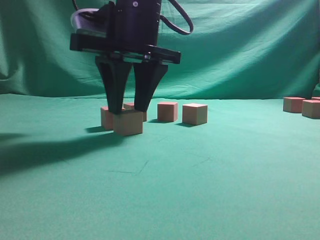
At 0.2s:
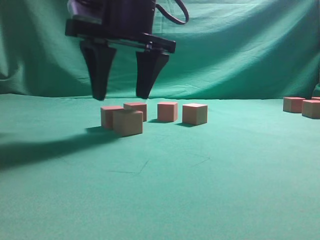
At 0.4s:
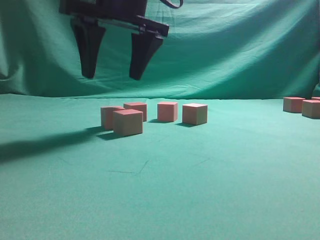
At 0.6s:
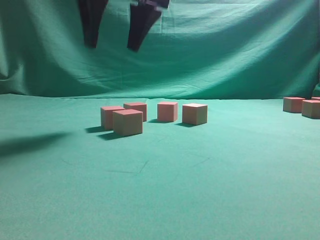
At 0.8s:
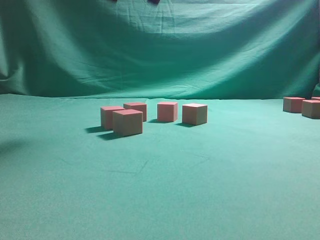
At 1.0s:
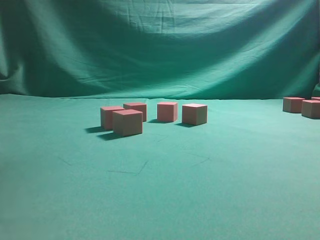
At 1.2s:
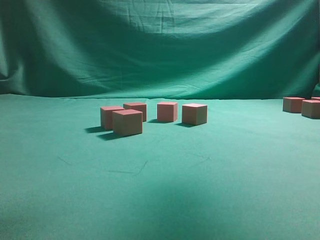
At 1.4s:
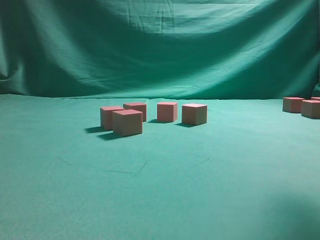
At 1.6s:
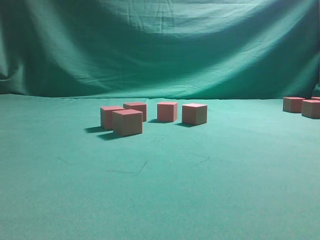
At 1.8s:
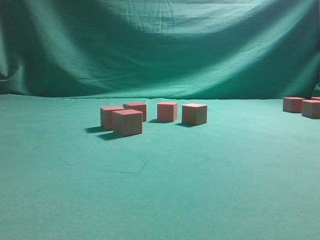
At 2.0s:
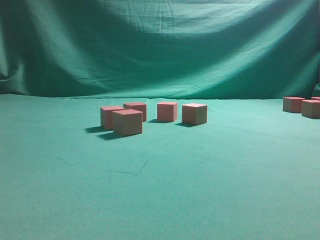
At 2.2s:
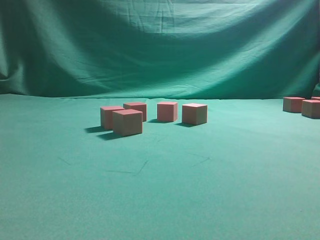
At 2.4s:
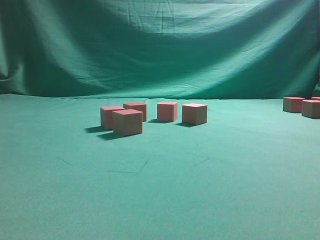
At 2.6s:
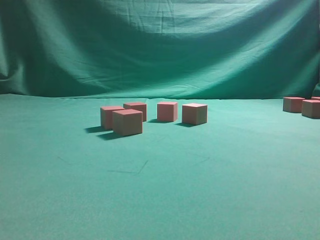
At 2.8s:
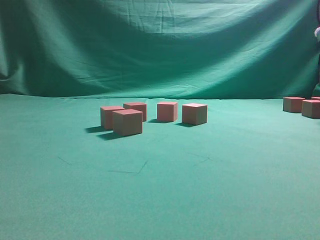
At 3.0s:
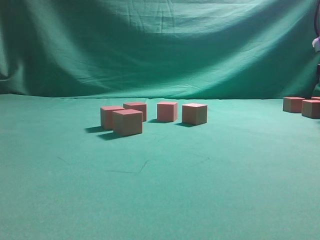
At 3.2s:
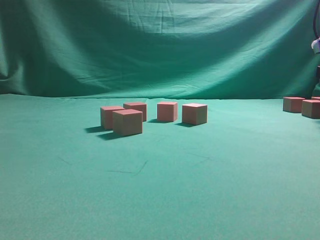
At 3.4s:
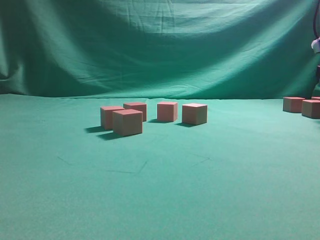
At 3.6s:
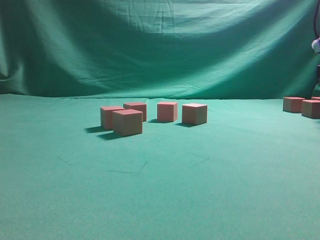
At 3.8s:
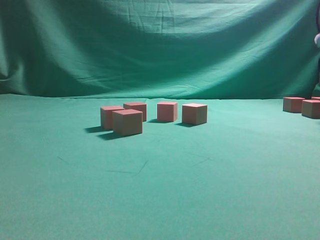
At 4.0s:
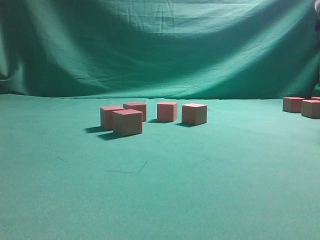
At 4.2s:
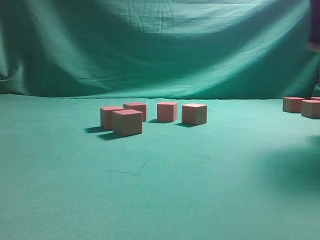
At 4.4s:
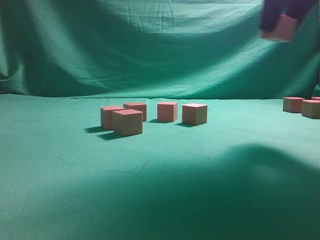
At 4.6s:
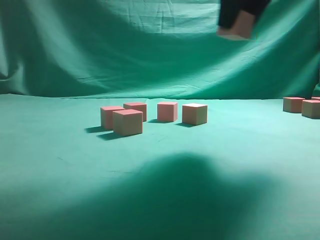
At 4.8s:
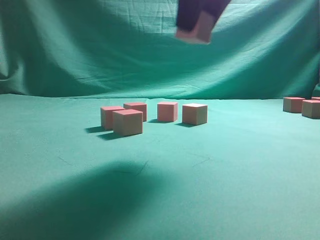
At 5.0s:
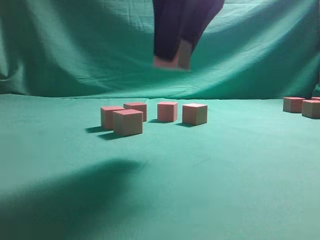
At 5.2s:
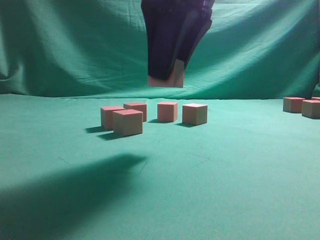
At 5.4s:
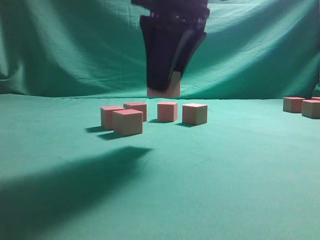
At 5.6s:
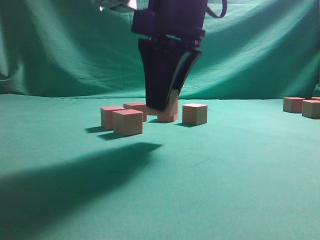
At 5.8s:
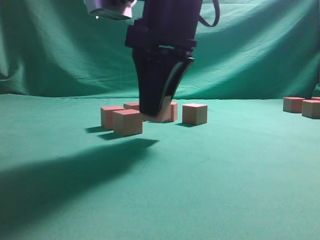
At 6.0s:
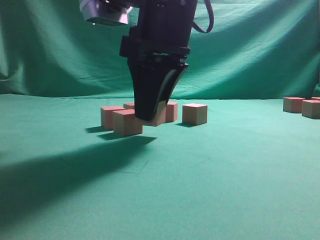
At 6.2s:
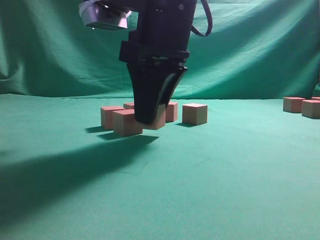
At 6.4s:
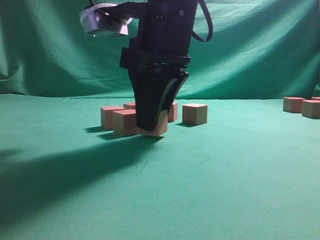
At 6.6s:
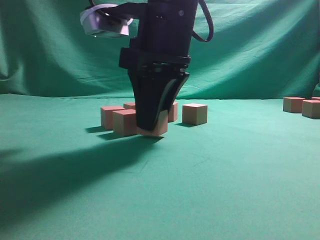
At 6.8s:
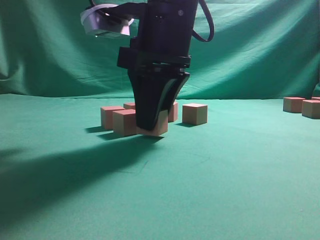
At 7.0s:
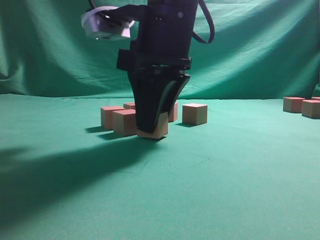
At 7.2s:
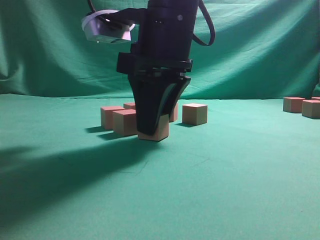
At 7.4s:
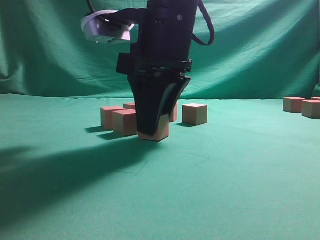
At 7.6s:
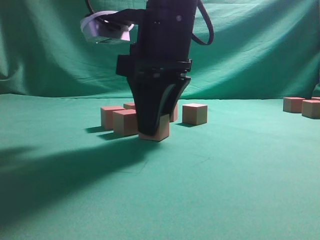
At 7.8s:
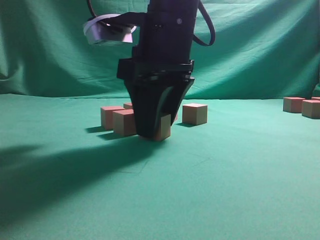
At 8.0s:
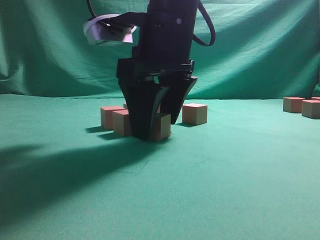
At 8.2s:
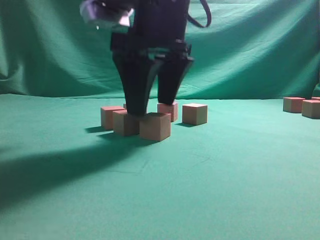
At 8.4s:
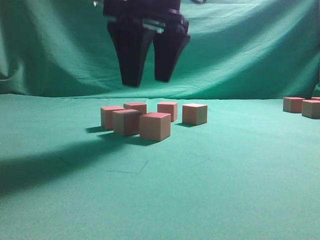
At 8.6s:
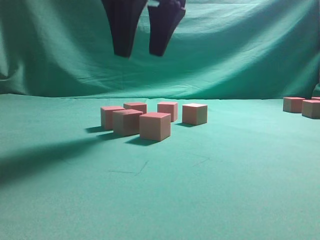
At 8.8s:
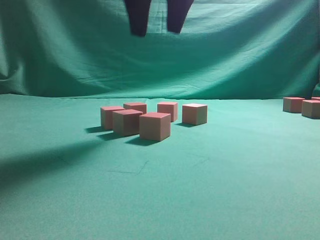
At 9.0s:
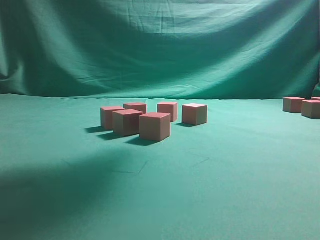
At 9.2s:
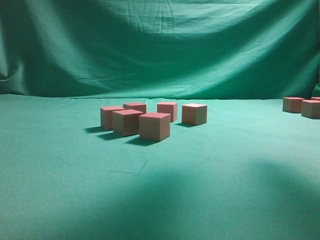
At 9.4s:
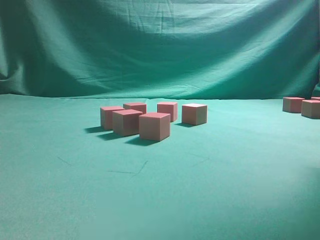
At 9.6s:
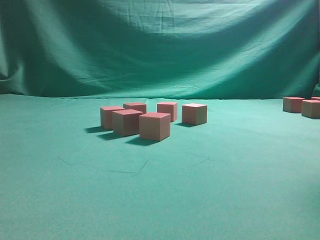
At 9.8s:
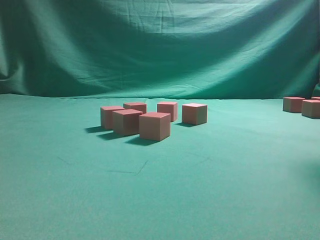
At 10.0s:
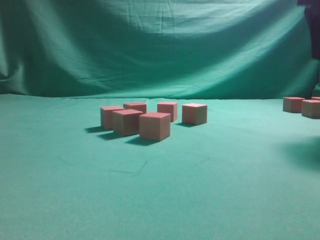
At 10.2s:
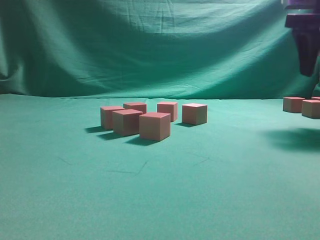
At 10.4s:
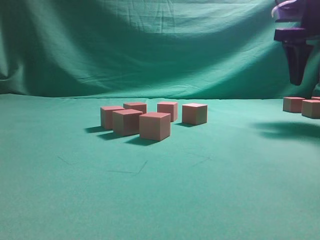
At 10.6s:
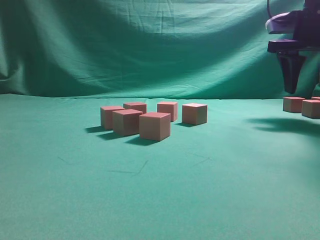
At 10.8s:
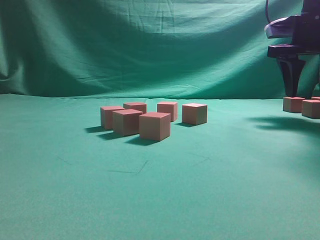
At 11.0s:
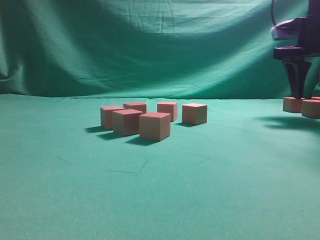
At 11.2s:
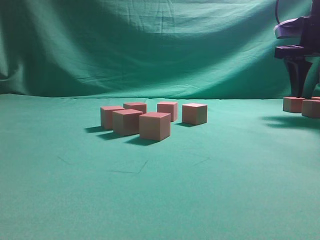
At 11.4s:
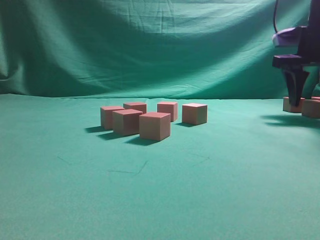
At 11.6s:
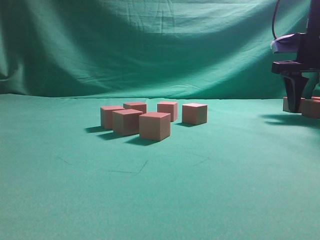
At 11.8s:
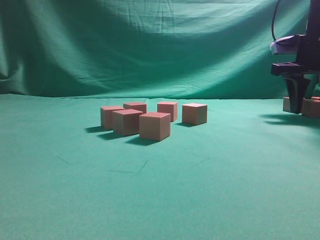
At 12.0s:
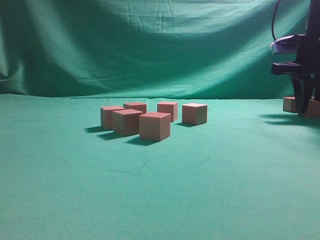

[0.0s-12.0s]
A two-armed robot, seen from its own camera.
Task of the whole recording: pick up the multiple cubes in two columns one by one and place them in another position on the table.
Step, 0.6s to 4.0s: Pick up the block on the table.
Step, 4.2s to 8.4s: Place the block at the correct position to assemble the letter S.
0.0s to 1.6s: The right gripper moves to the right and upward, about 30 cm, and opens.
3.0s to 4.4s: The right gripper is displaced to the left, upward and backward by approximately 20 cm, and closes.
4.4s to 6.0s: The right gripper moves to the left and downward, roughly 20 cm.
6.0s to 7.6s: The grippers stay close to where they were, moving slightly.
7.6s to 9.0s: The right gripper goes roughly 15 cm upward, and opens up.
9.0s to 10.4s: The right gripper goes roughly 25 cm to the right, downward and forward.
10.4s to 12.0s: The right gripper travels downward by about 5 cm, and closes its fingers.

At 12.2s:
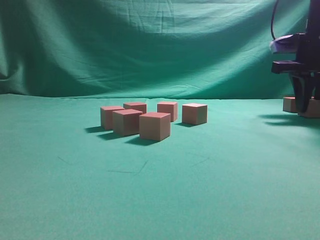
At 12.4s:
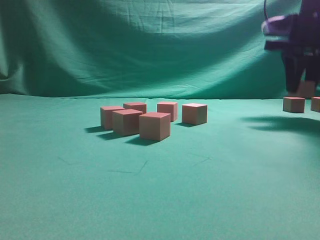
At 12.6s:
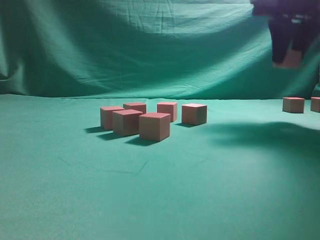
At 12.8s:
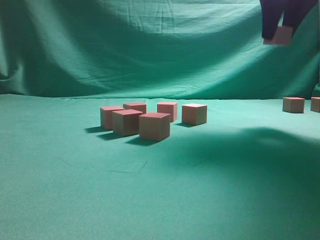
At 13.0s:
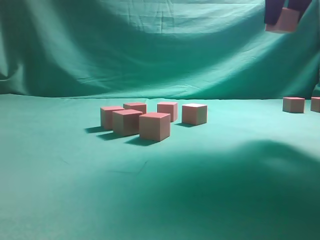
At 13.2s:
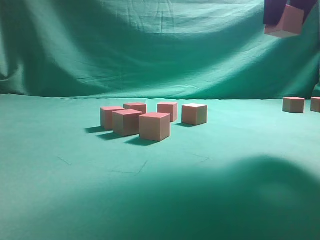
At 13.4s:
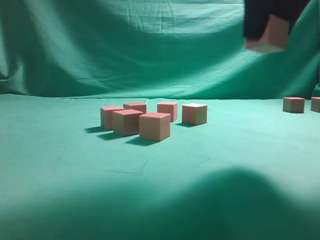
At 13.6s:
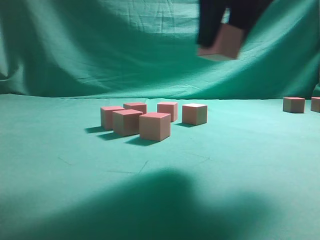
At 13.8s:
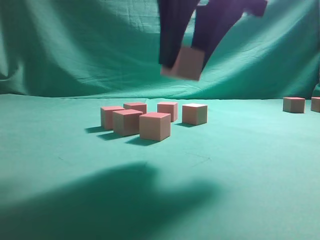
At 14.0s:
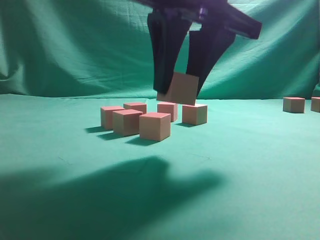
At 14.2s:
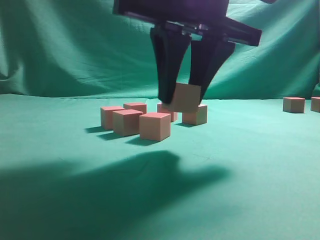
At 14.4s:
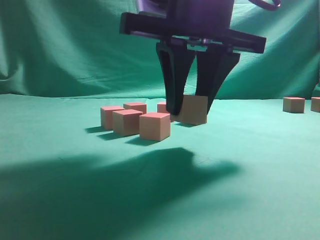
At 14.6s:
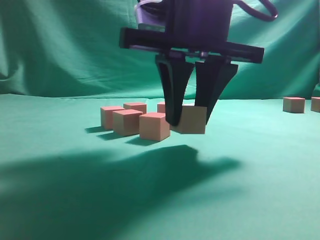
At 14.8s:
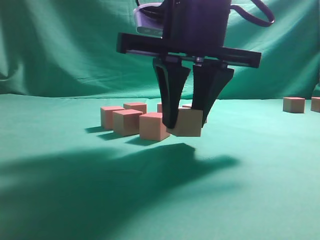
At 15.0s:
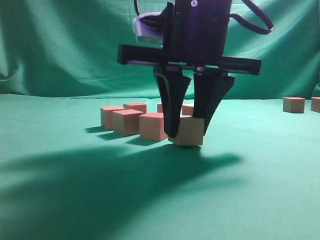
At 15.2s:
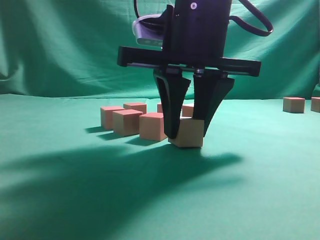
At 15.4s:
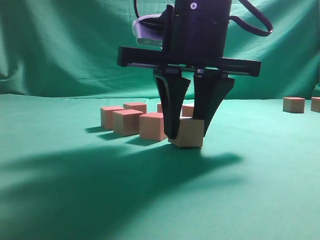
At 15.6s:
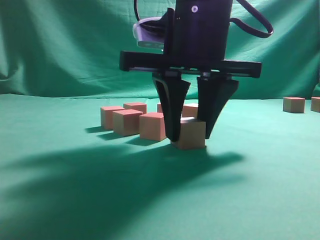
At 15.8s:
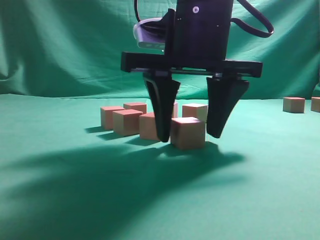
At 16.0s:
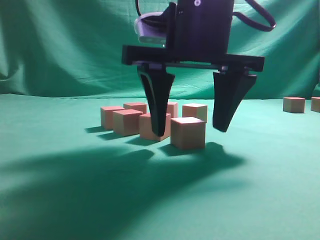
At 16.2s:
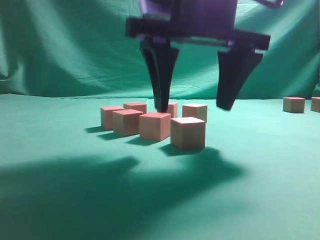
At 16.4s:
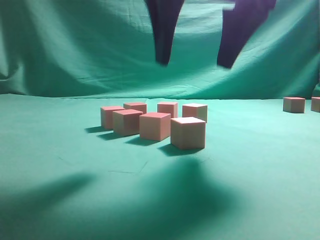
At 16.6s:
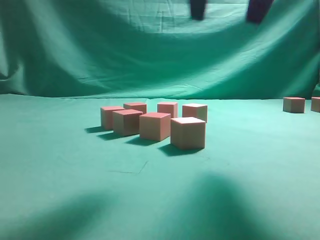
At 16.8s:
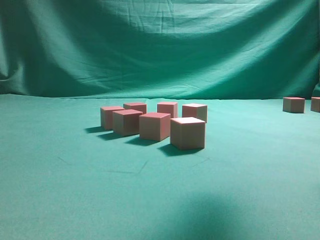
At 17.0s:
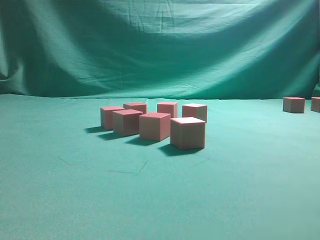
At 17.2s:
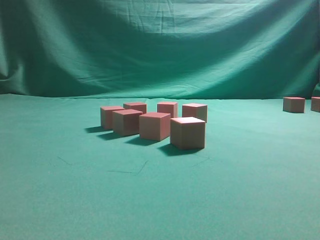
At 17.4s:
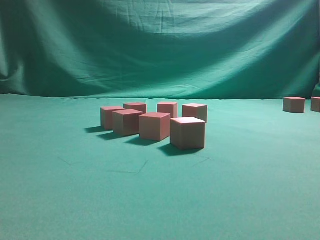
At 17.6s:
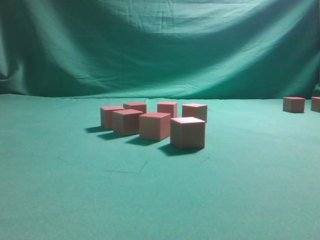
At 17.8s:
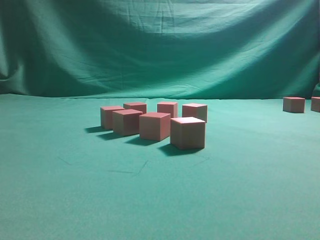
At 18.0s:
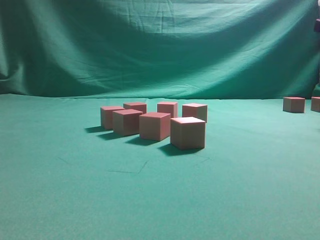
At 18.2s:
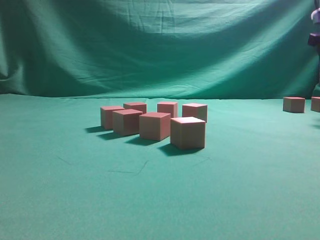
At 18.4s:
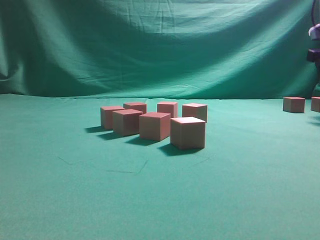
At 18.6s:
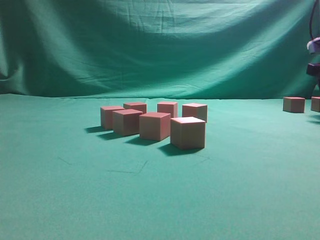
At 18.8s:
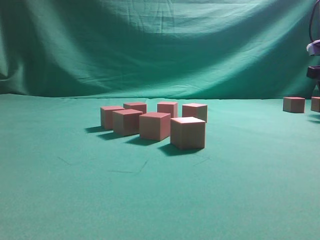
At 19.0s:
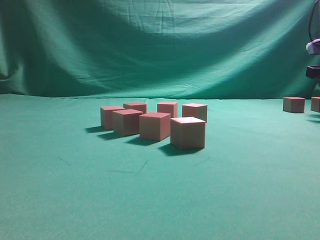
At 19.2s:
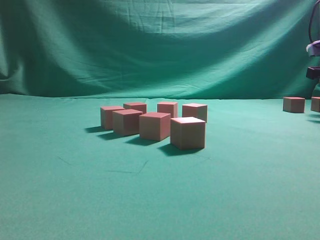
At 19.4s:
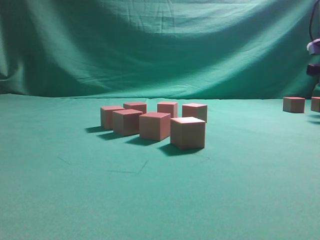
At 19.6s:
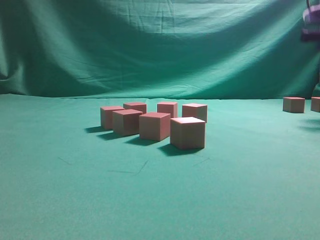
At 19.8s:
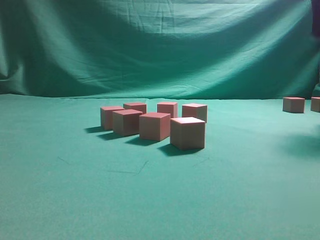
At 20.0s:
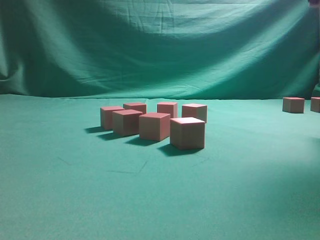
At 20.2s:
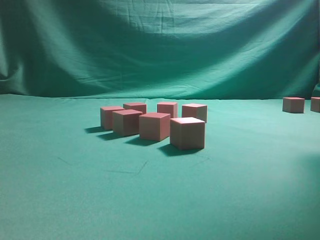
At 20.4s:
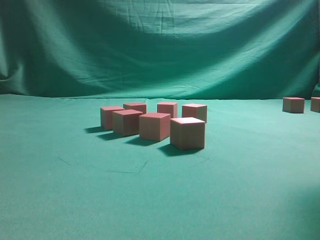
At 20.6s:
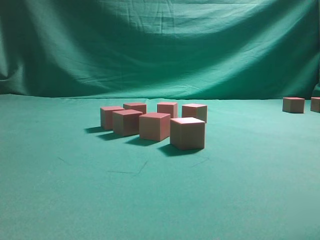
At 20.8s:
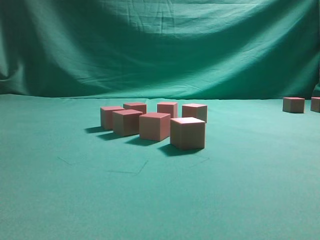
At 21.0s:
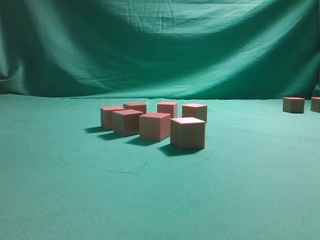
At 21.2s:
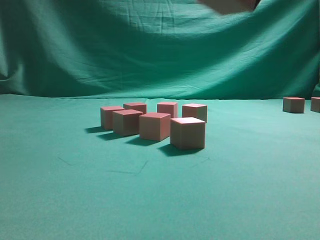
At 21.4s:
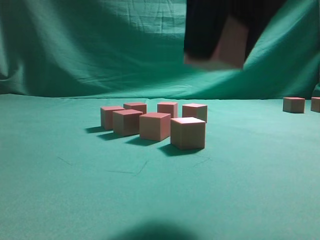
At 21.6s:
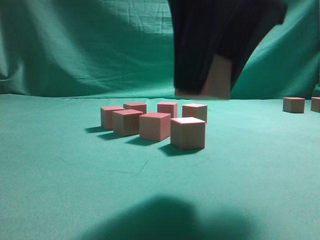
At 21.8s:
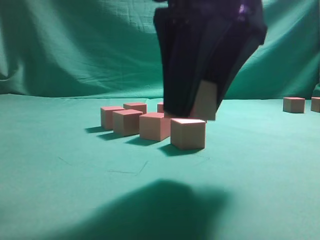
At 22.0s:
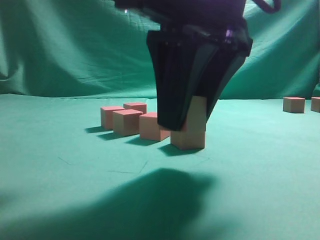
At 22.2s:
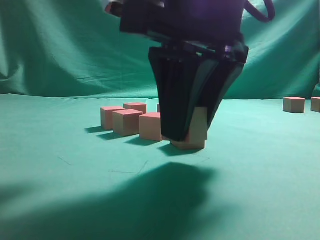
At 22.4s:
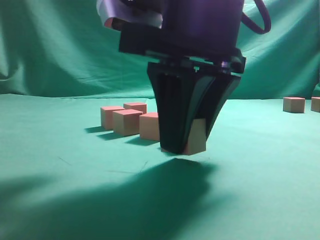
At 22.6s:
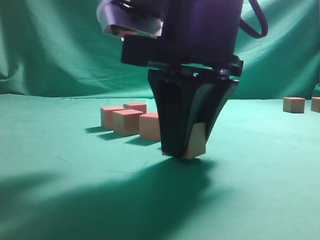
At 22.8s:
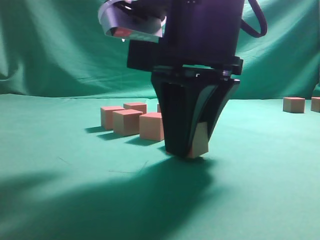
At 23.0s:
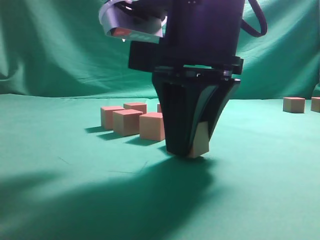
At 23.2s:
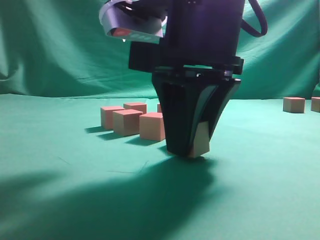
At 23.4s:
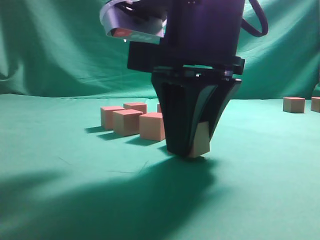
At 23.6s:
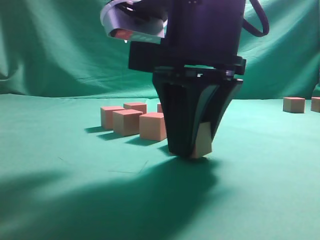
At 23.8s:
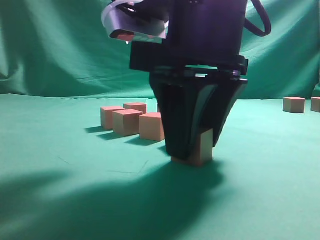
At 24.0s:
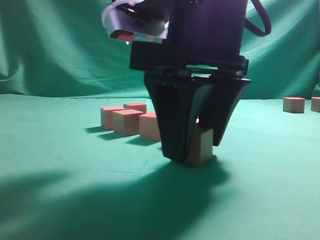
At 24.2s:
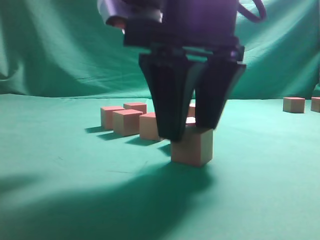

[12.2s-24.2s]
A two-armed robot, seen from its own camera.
Task of the whole recording: pick up the multiple cubes in two columns one by one and place them in another position on the table.
Step, 12.6s to 16.2s: Place the block at the correct position to assemble the letter S.
Step, 16.6s to 19.6s: Pick up the block on the table.
12.2s to 13.8s: The right gripper moves to the left and backward, approximately 30 cm.
13.8s to 15.2s: The right gripper shifts approximately 5 cm downward.
15.2s to 16.6s: The right gripper goes roughly 10 cm upward, and opens.
16.6s to 18.2s: The right gripper shifts about 30 cm to the right and forward.
18.2s to 19.8s: The right gripper is displaced upward by about 10 cm, and closes.
19.8s to 21.2s: The right gripper is displaced backward and to the left by roughly 30 cm.
21.2s to 22.6s: The right gripper travels downward, to the left and forward by approximately 15 cm.
22.6s to 24.2s: Both grippers stay about where they are.
